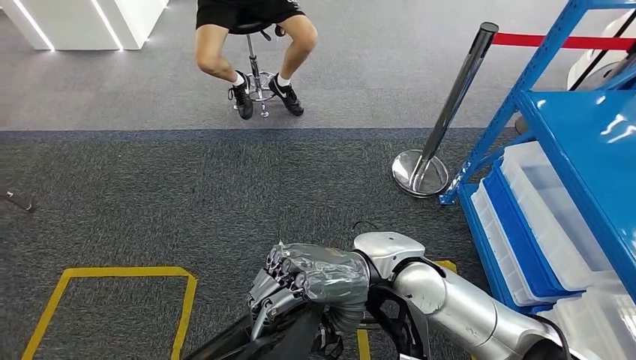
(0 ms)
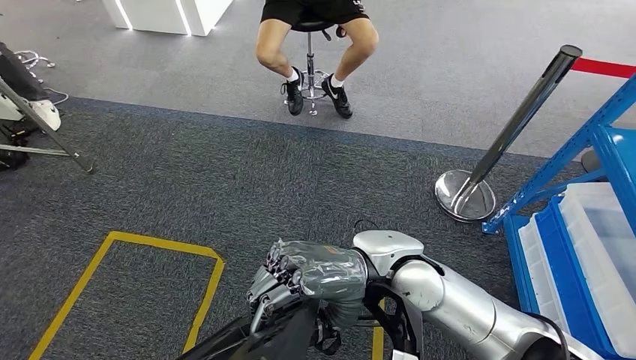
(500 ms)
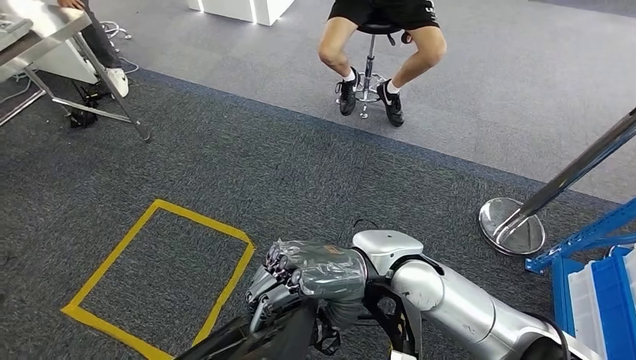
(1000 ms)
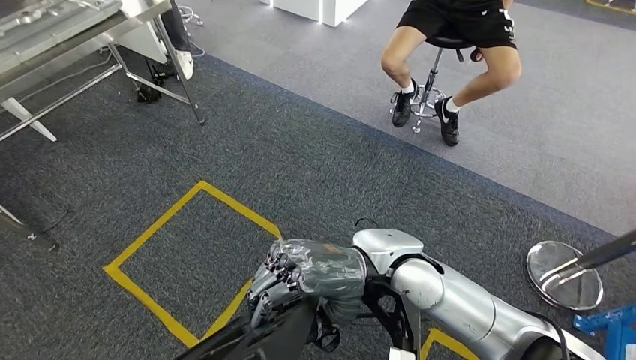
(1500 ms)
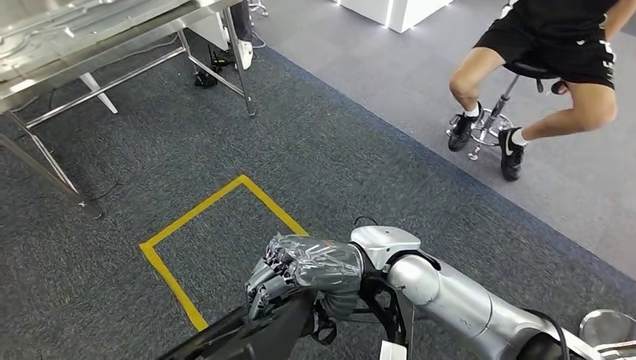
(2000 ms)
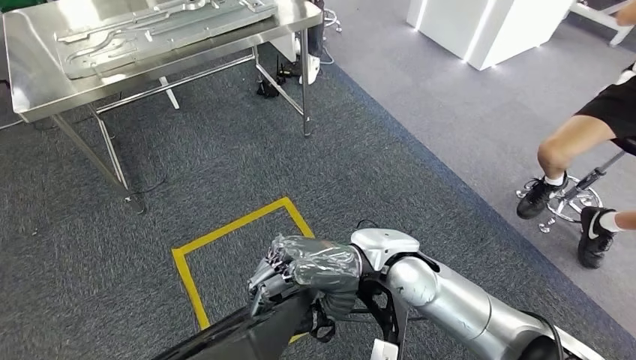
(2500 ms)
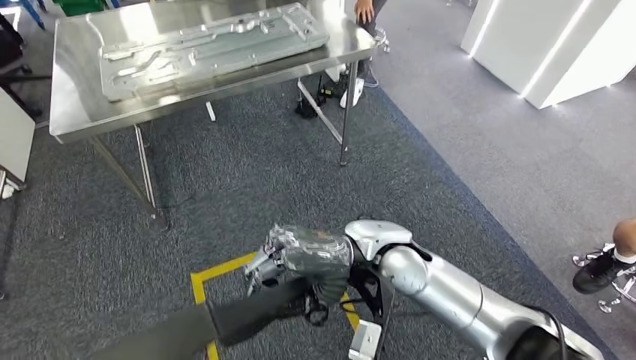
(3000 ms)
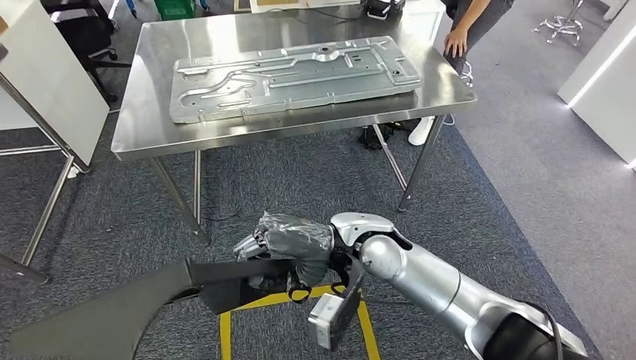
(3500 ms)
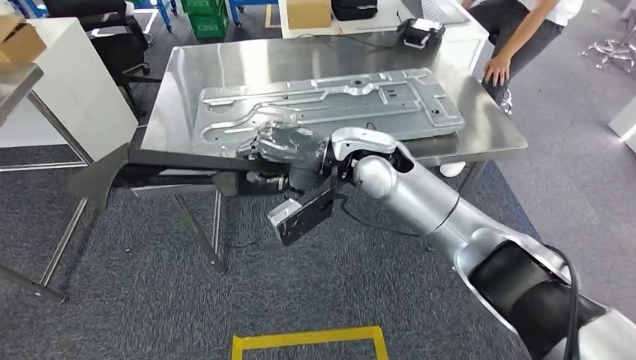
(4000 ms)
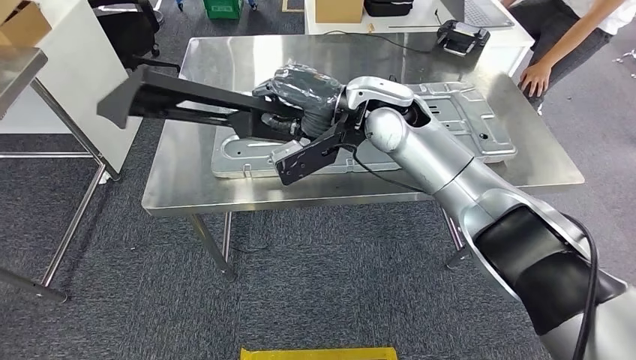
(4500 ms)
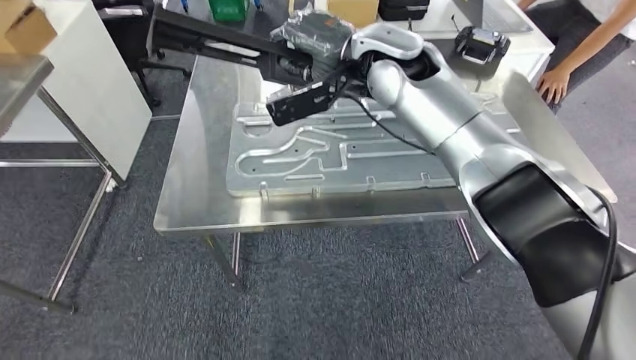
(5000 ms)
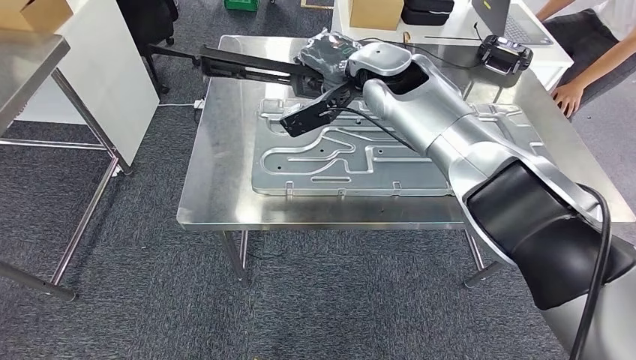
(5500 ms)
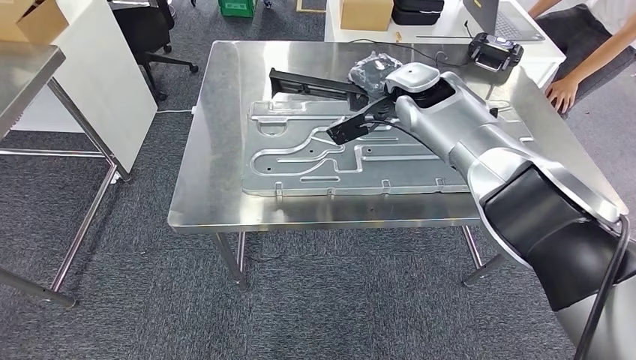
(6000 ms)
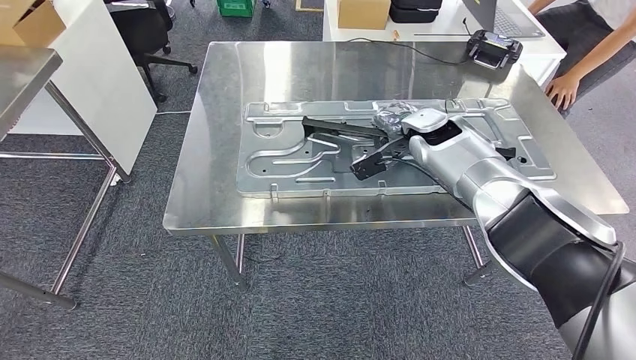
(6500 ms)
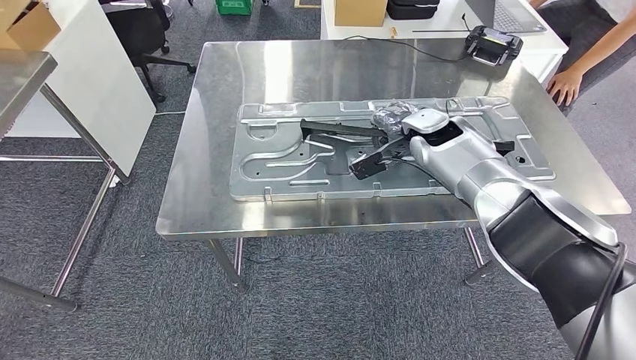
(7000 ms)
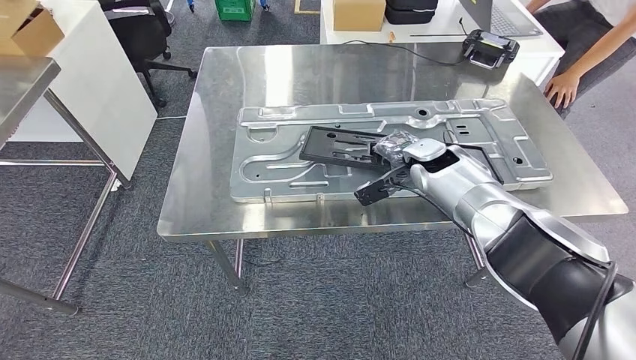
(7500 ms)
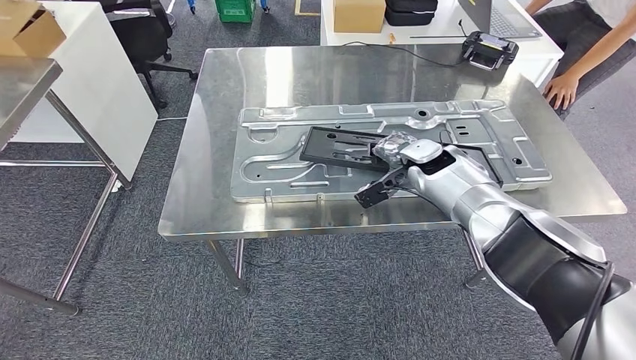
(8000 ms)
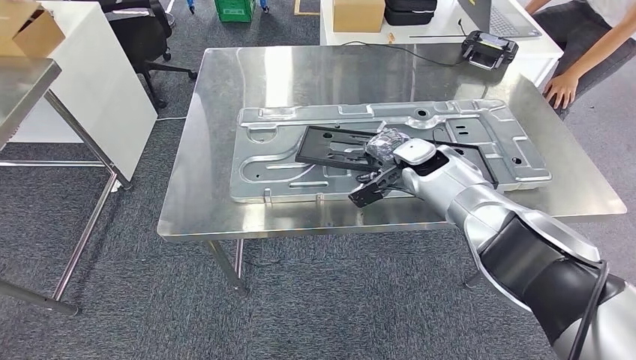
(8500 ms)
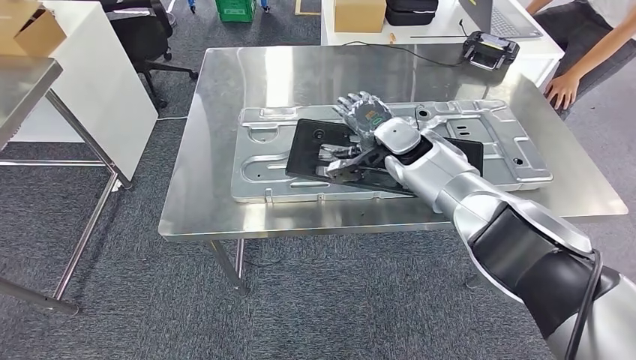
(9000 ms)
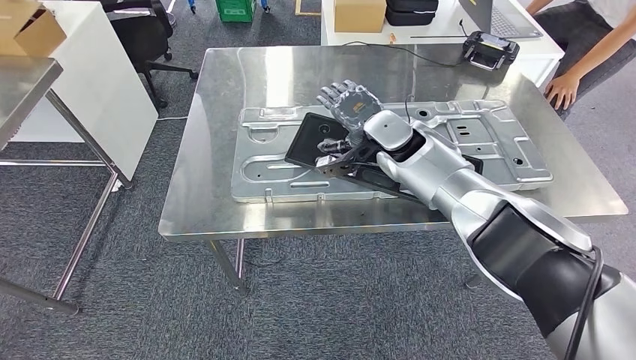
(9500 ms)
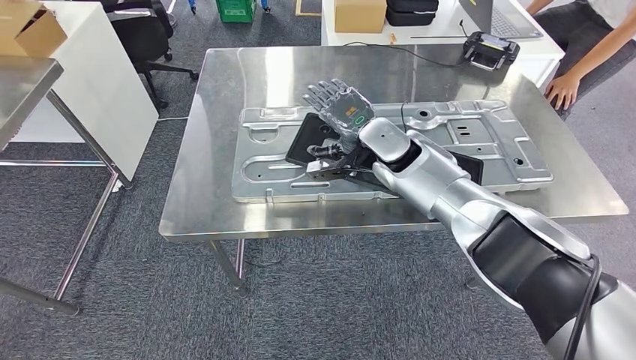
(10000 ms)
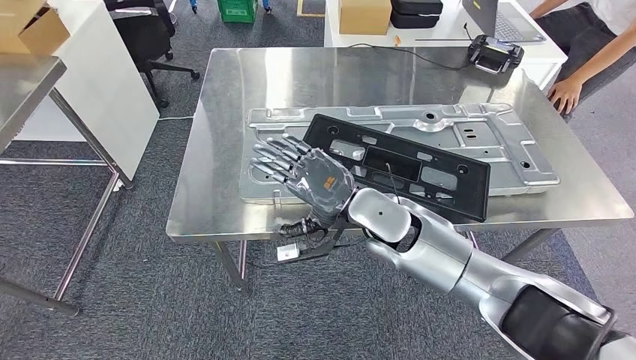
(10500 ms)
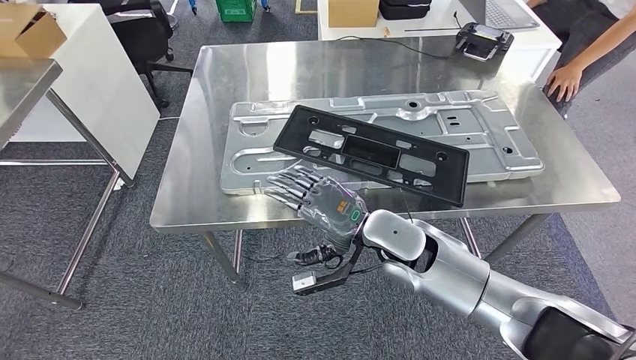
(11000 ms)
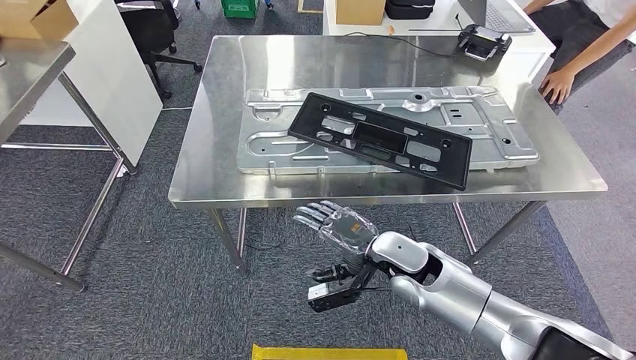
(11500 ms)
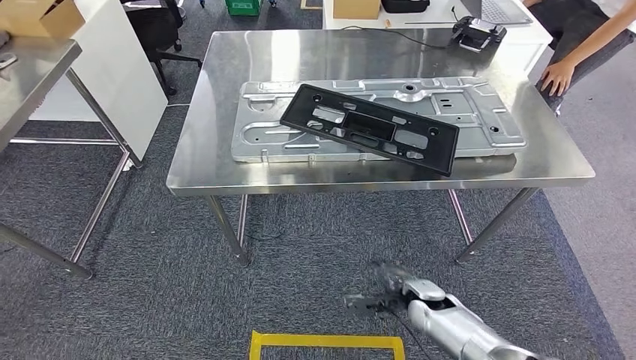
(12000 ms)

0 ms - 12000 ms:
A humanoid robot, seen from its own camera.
Step, 0 ms - 4500 ms: Move the large material to the workbench.
8000 ms - 10000 ms: The right hand travels to the left by roughly 10 cm.

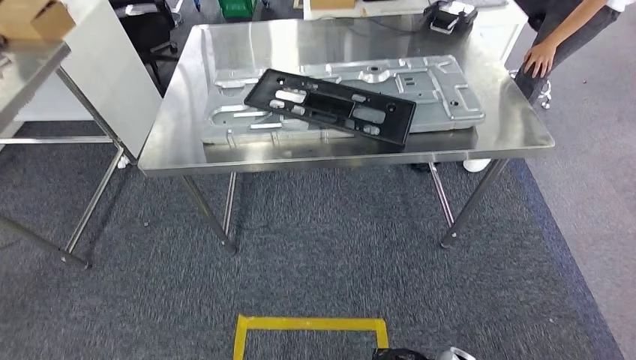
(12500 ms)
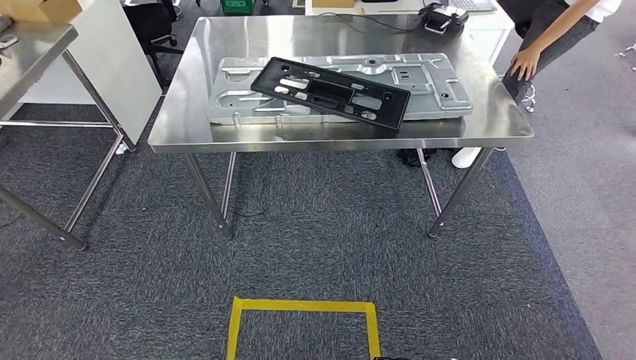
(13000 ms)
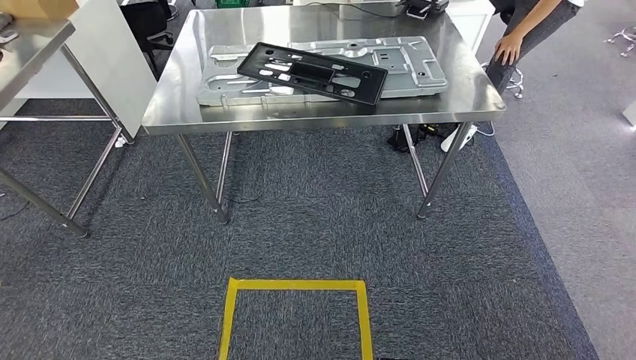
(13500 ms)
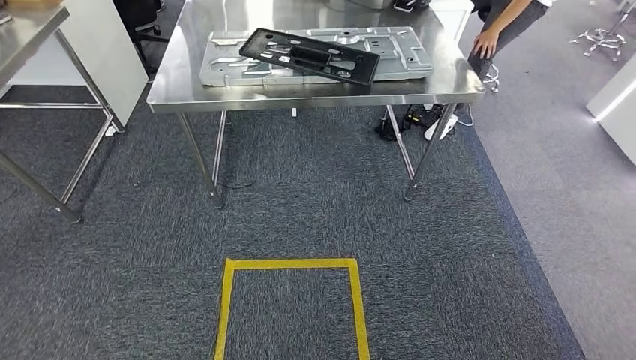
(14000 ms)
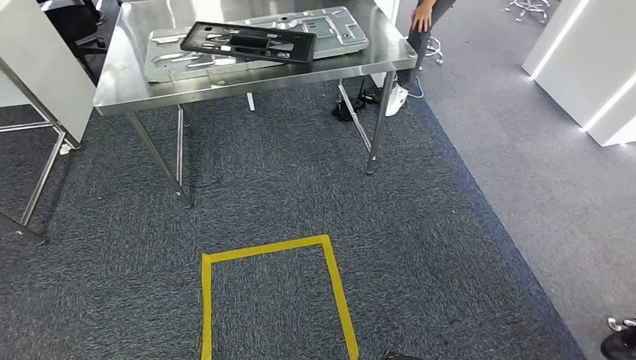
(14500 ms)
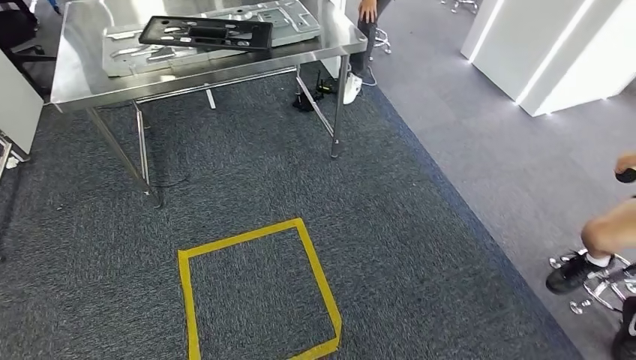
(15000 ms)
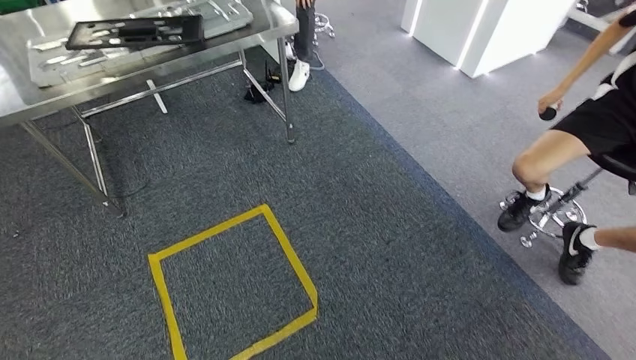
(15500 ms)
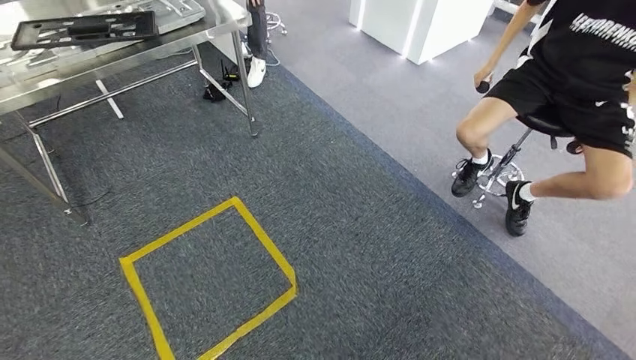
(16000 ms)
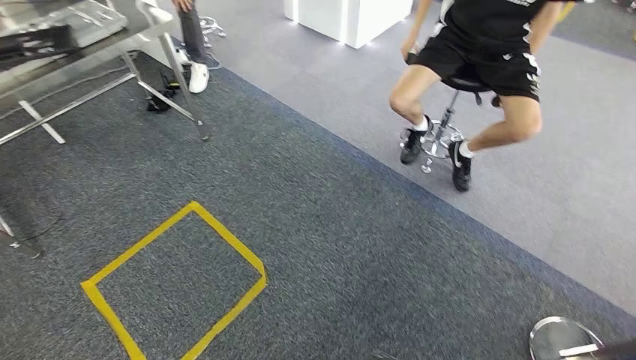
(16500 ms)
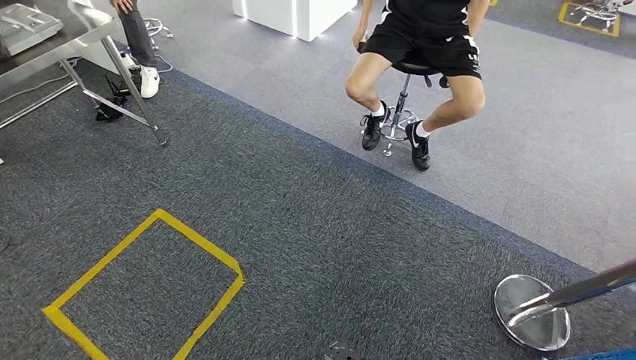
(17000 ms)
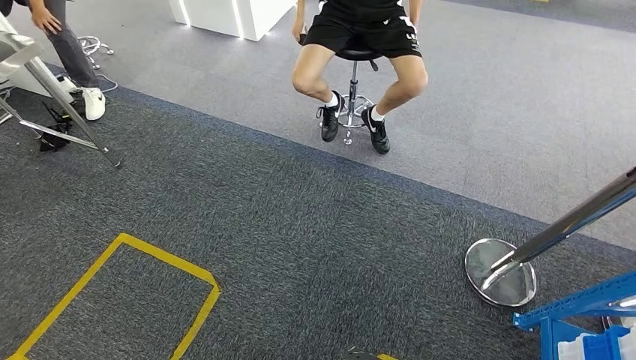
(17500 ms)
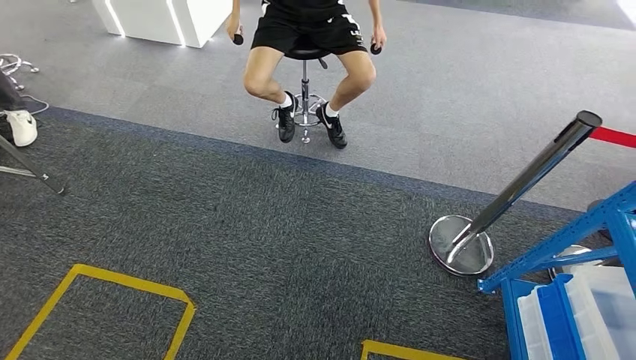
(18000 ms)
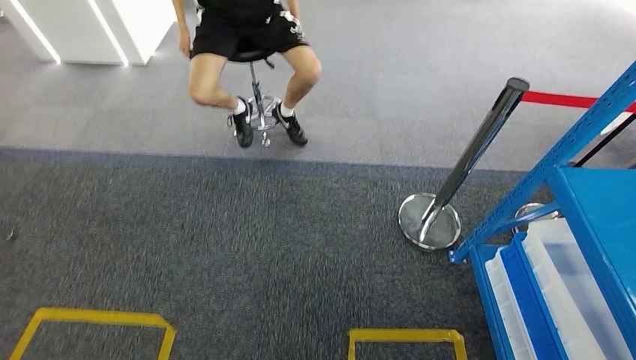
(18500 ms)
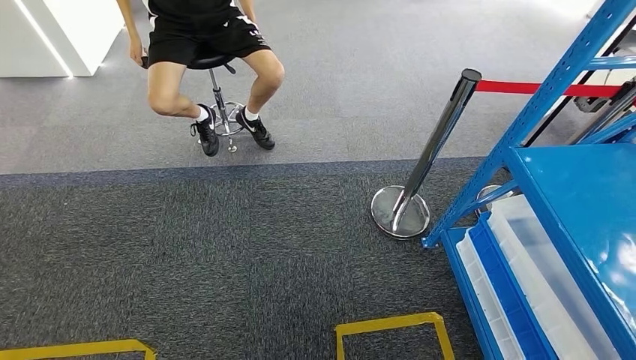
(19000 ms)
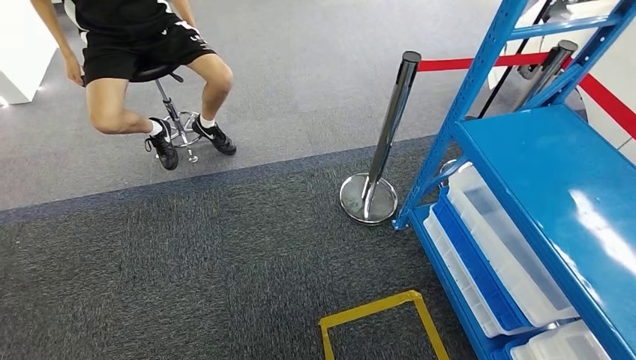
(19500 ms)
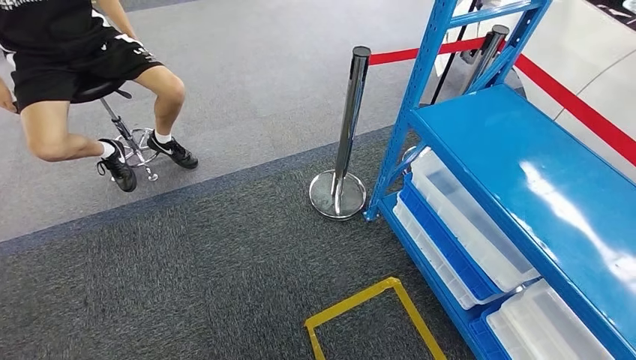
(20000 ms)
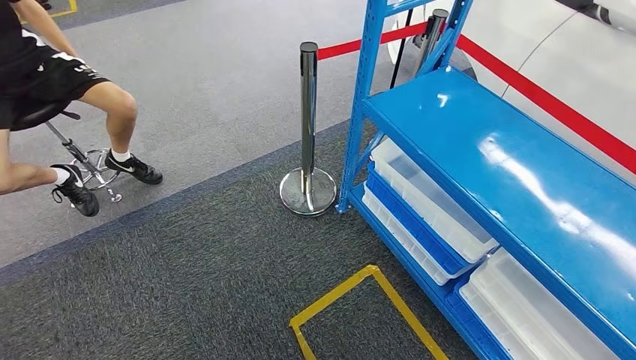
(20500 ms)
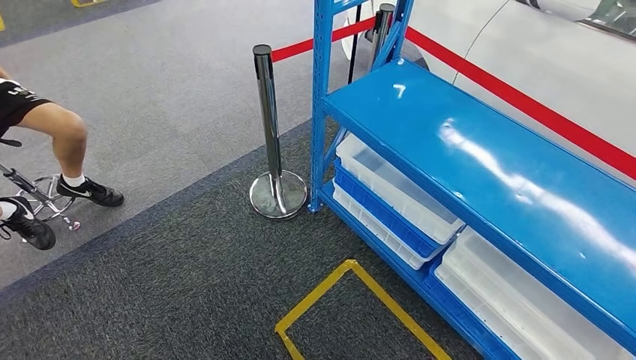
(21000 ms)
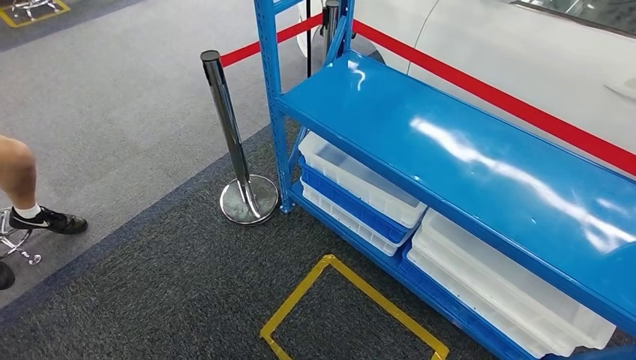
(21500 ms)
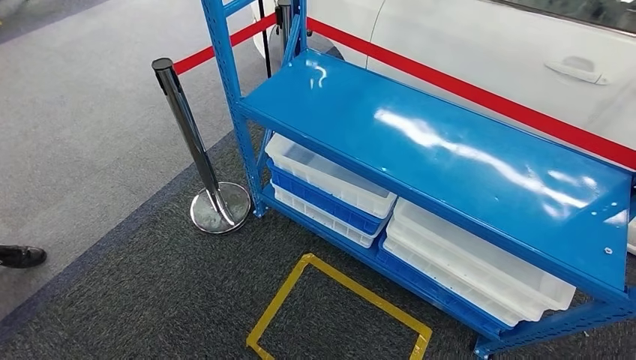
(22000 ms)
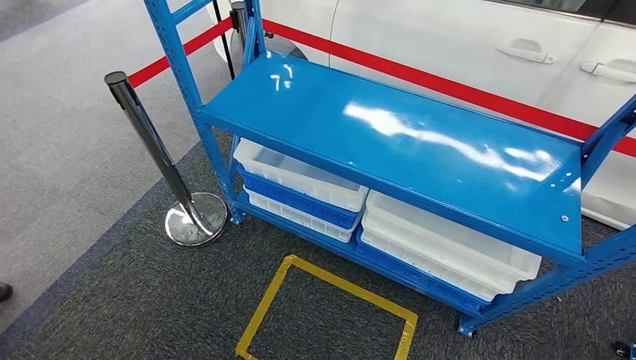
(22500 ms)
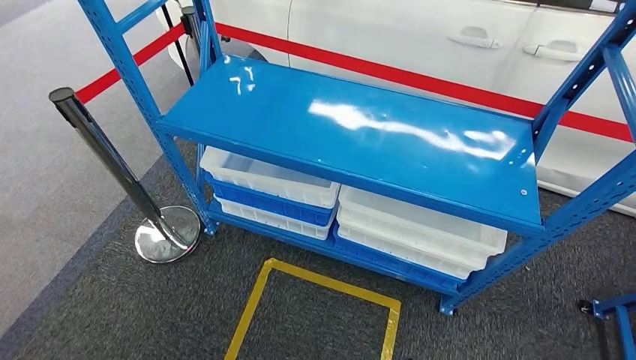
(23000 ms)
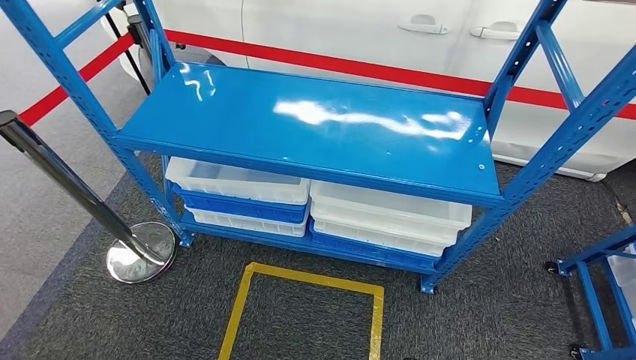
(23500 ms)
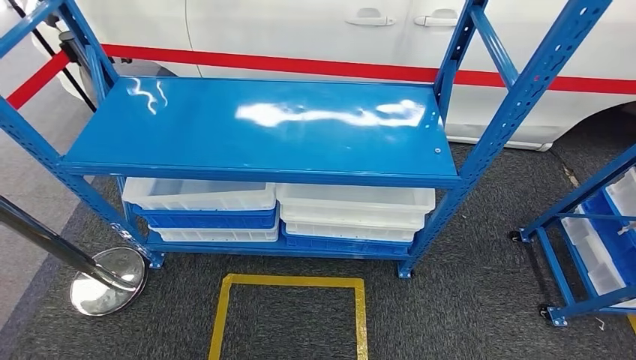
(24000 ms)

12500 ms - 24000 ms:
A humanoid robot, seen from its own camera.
Step, 13000 ms - 24000 ms: Move to the initial position of the shelf.
